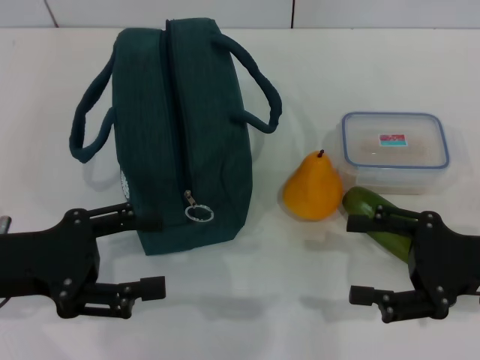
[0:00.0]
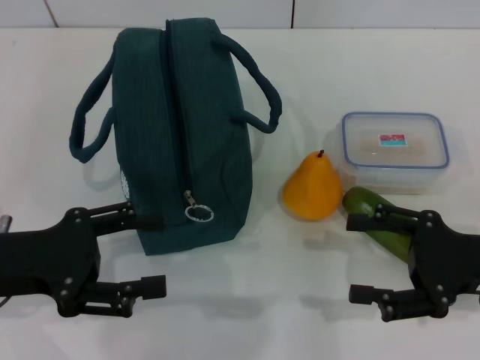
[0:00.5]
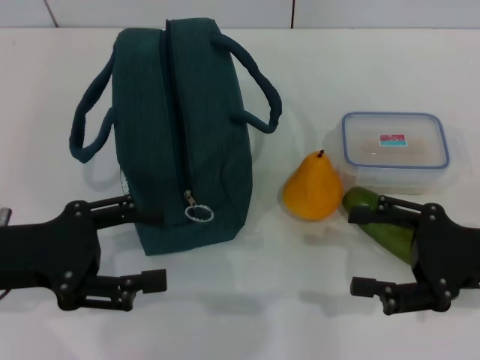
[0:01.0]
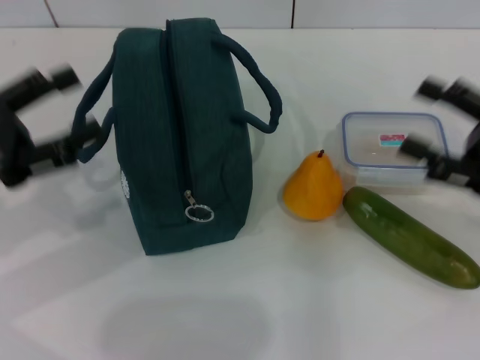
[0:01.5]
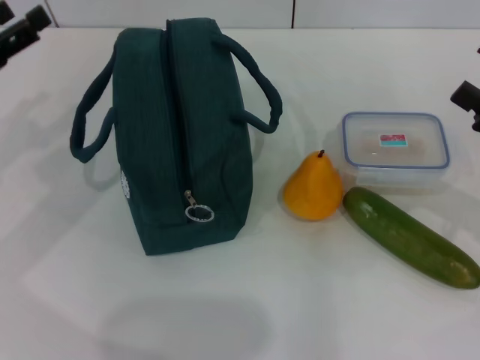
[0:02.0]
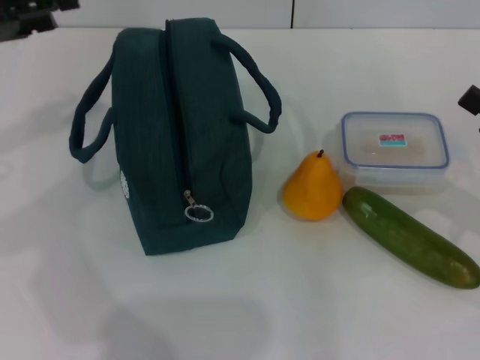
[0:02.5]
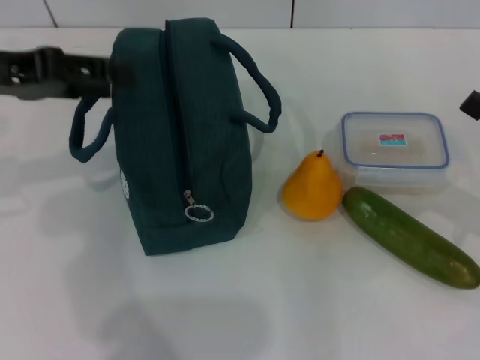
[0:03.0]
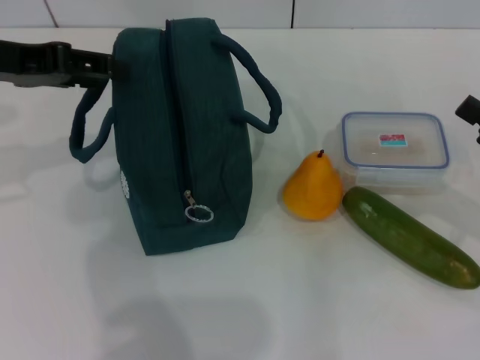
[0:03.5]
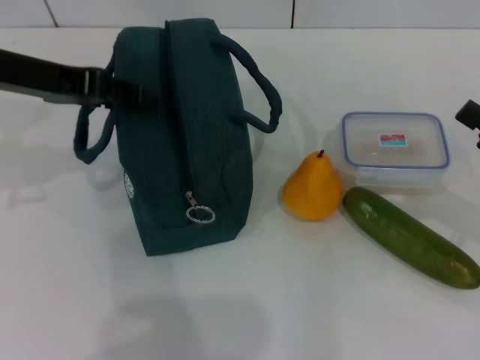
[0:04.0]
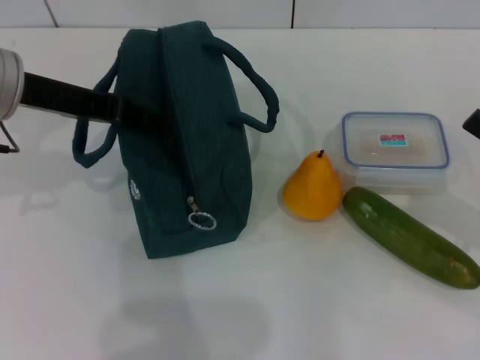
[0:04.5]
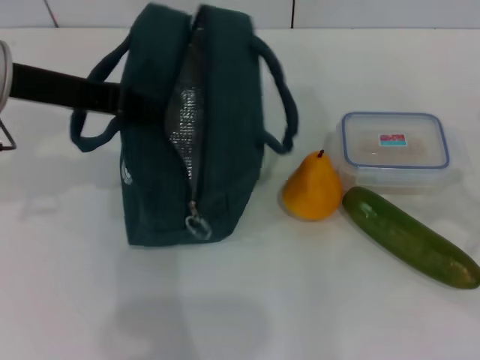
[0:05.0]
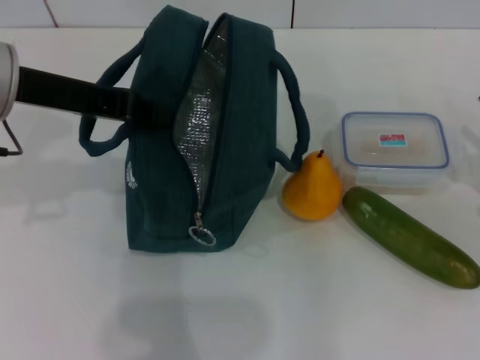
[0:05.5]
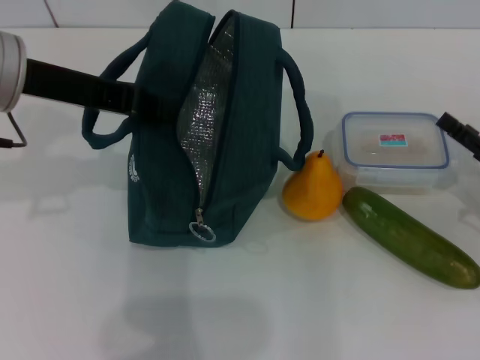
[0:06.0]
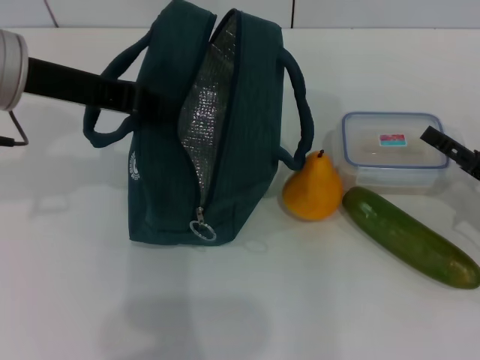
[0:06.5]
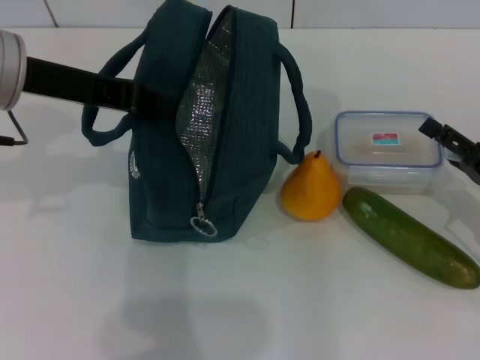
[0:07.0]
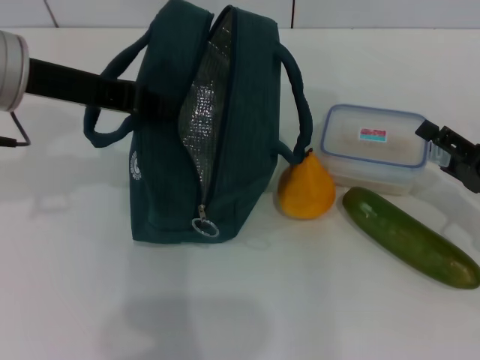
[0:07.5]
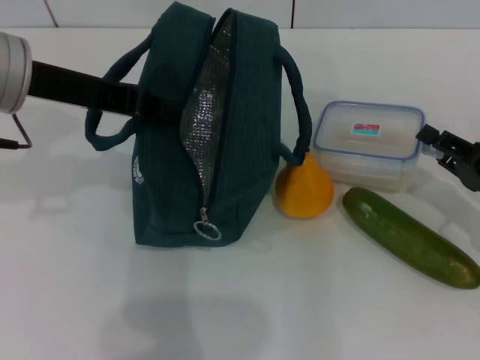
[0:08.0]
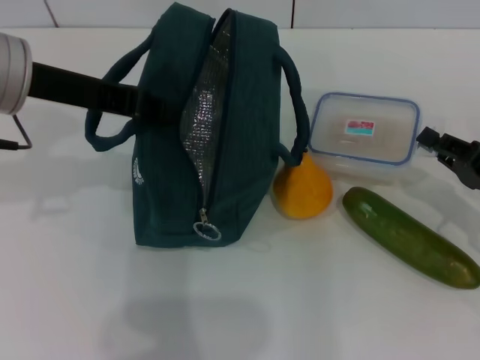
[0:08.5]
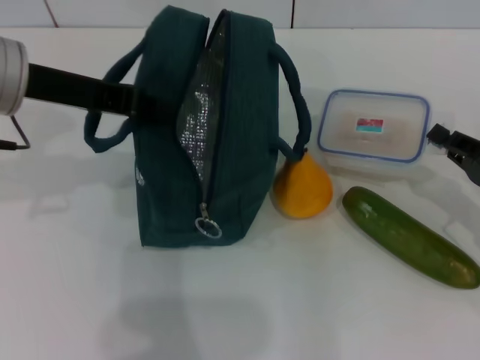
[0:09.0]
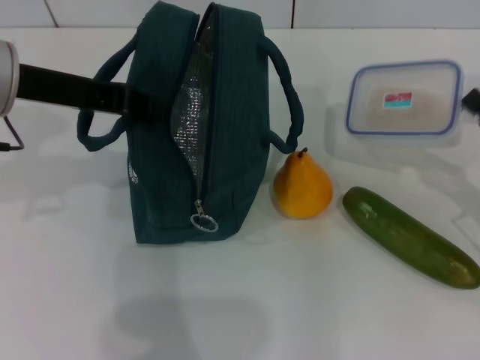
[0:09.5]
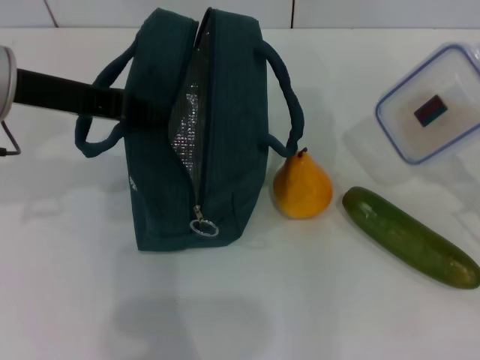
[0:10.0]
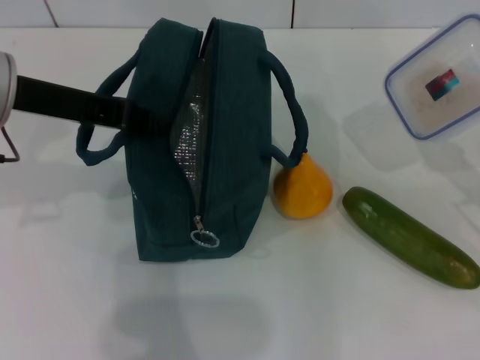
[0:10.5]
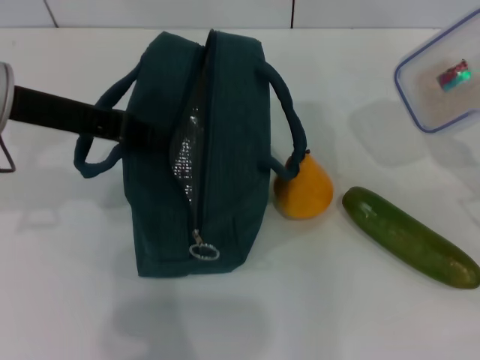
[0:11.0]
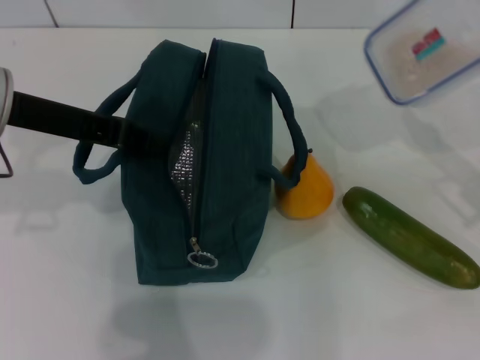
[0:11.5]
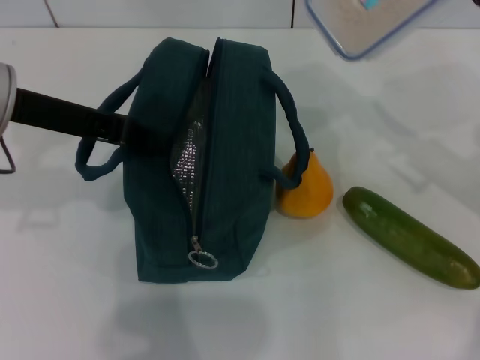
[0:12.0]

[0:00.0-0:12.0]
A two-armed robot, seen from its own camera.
Step, 0:00.0 to 0:04.5: Hold the lunch bag with your left hand.
Step, 0:05.0 to 0:08.0: Pick up the lunch box with your right hand.
0:00.0 to 0:02.0: The right gripper travels to the right by approximately 5 cm. The left gripper moves forward and to the left, roughly 10 cm.
0:02.0 to 0:04.0: The left gripper travels upward and to the right by roughly 10 cm.
0:04.0 to 0:06.0: The left gripper closes; the right gripper shifts about 10 cm downward.
0:06.0 to 0:08.0: The right gripper closes.
0:08.0 to 0:10.0: The right gripper shifts by about 5 cm, and closes.
0:10.0 to 0:12.0: The right gripper heads forward, upward and to the left, covering about 10 cm.

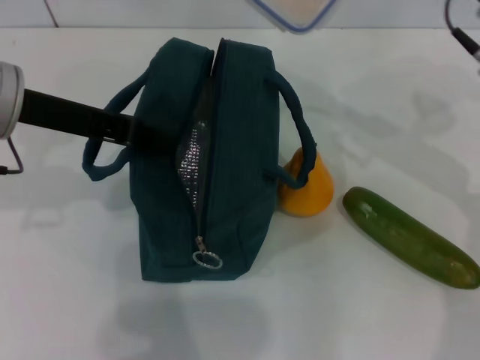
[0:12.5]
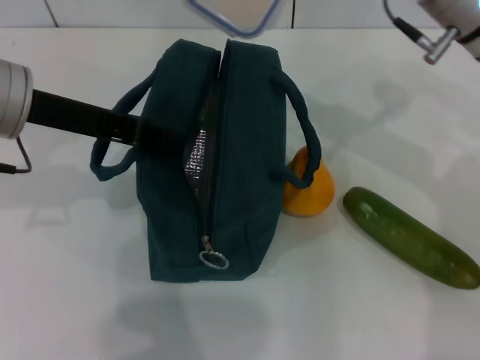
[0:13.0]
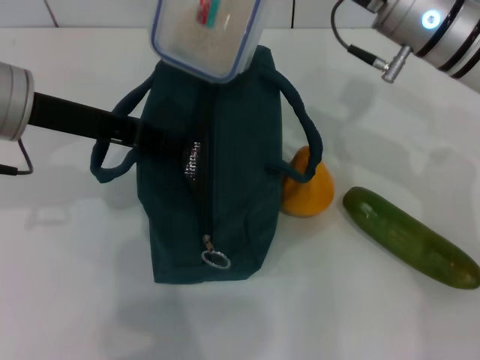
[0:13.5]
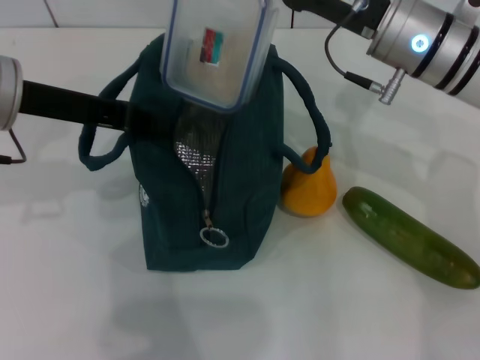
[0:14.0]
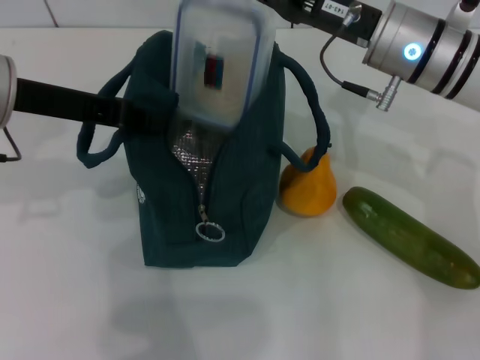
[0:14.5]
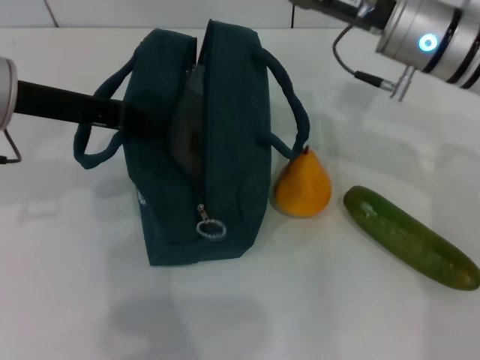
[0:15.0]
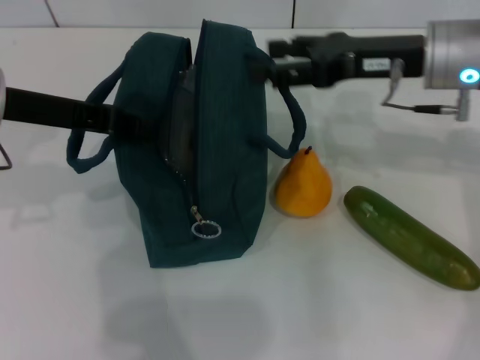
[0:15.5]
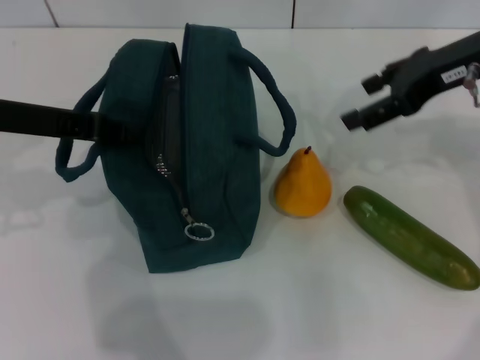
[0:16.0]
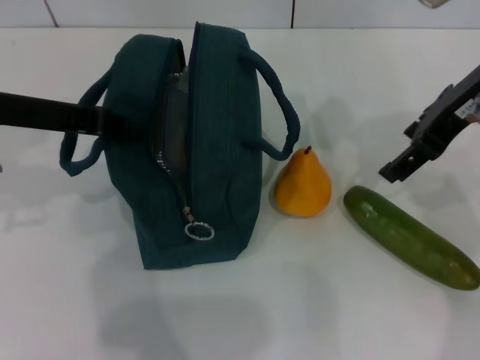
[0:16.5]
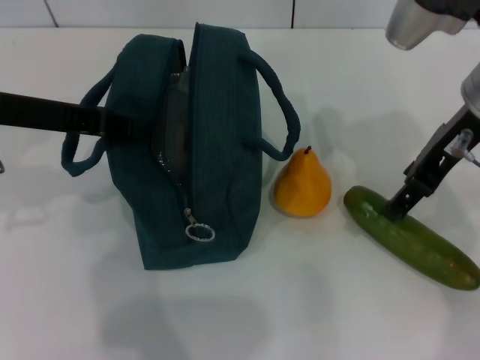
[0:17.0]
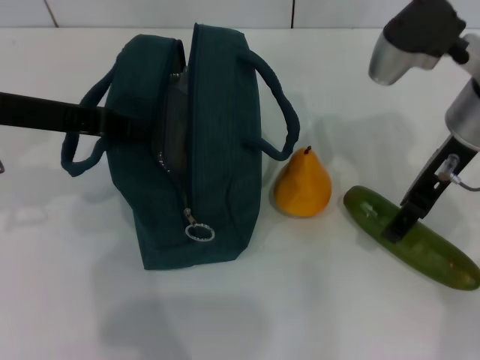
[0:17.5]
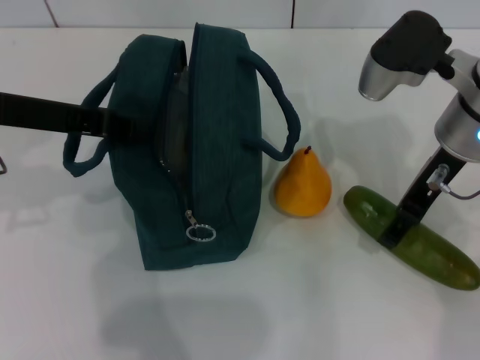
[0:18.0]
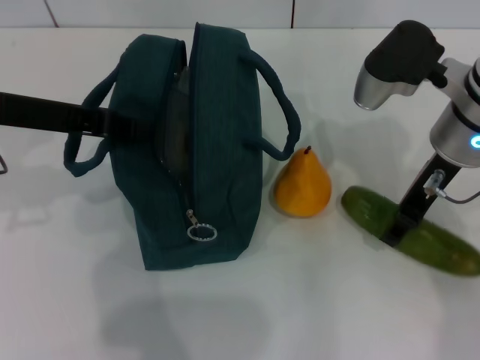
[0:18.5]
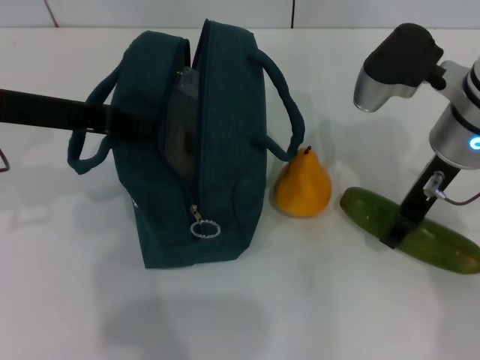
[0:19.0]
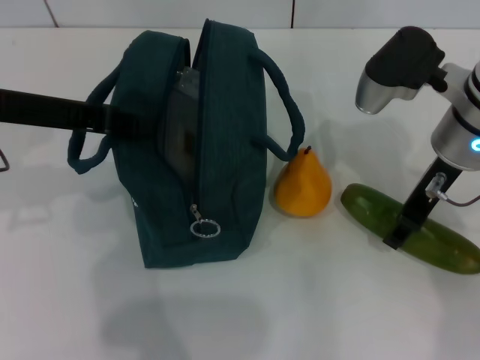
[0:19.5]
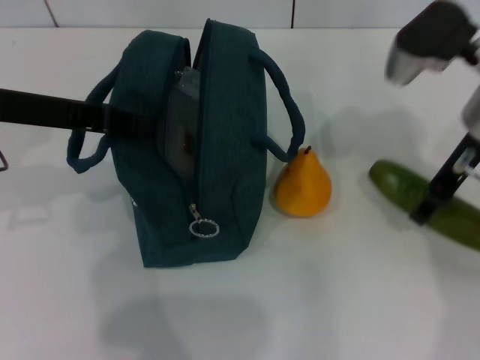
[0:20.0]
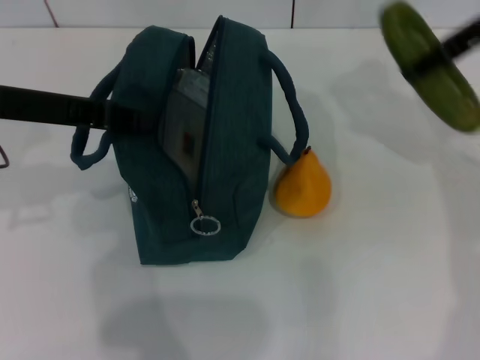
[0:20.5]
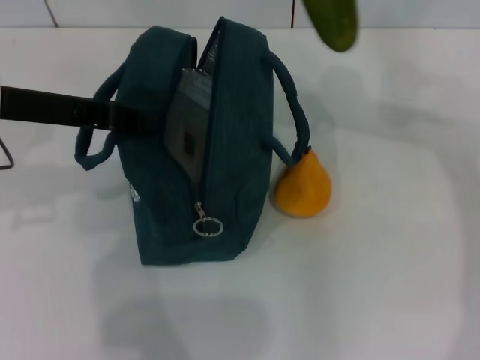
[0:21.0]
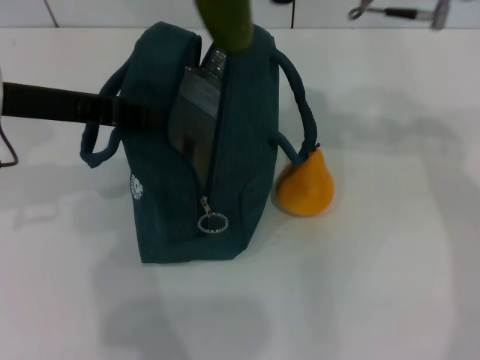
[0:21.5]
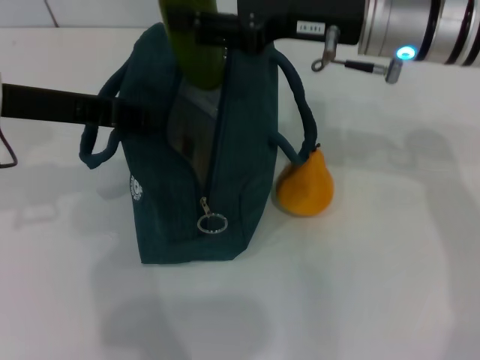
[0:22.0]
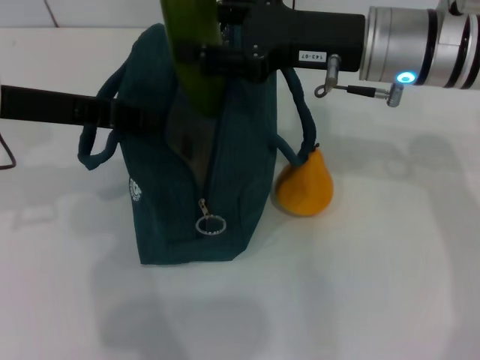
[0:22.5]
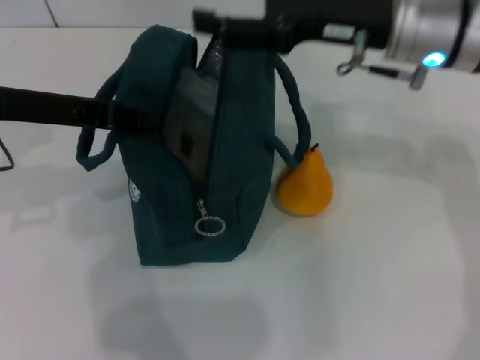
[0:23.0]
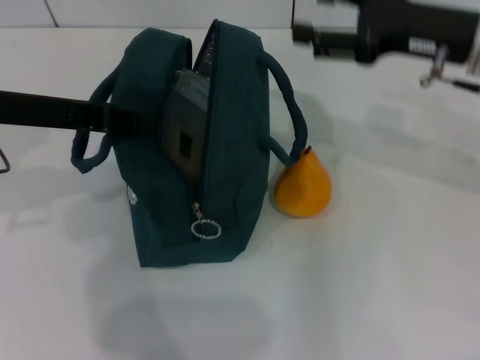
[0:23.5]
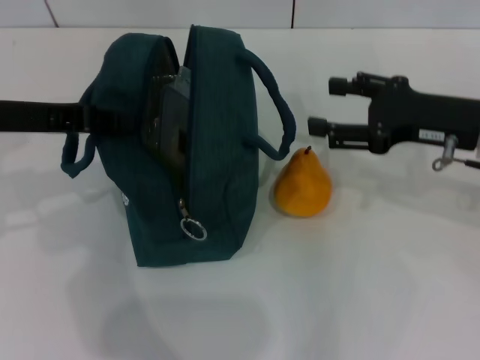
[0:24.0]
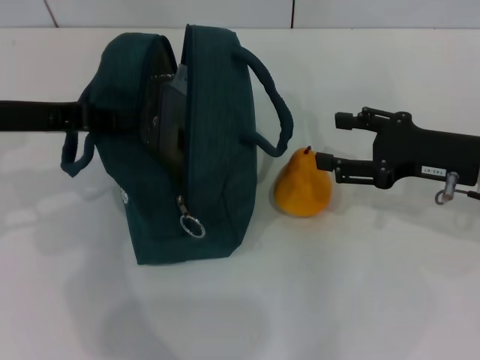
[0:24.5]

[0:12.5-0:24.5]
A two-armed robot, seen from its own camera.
Step, 0:12.5 to 0:14.5: Place the lunch box into the lunch bag with your right hand.
Step, 0:15.0 to 0:19.5: Pick up the cucumber with your right hand.
Step, 0:20.0 to 0:22.5: Put the cucumber into the lunch bag with your right hand.
0:12.5 to 0:14.5: The right gripper shifts roughly 10 cm to the left.
0:14.5 to 0:16.5: The right gripper shifts roughly 10 cm upward and to the right, and opens its fingers.
0:16.5 to 0:18.5: The right gripper moves downward, roughly 10 cm.
0:18.5 to 0:20.5: The right gripper heads upward and to the right, covering approximately 10 cm.
0:20.5 to 0:22.5: The right gripper moves to the left and downward, approximately 15 cm.
0:22.5 to 0:24.5: The right gripper shifts some 15 cm to the right, downward and backward.

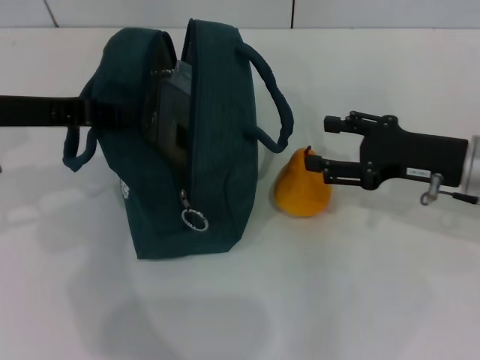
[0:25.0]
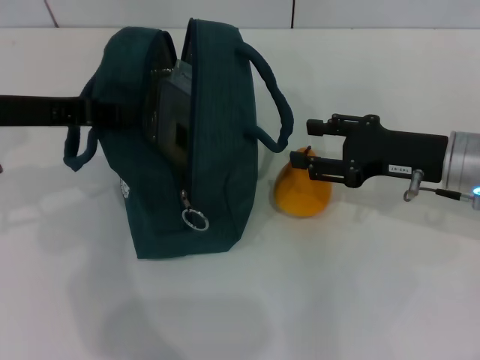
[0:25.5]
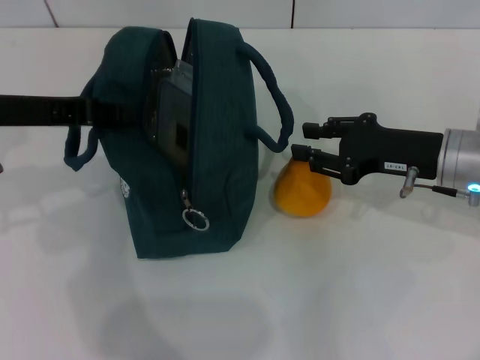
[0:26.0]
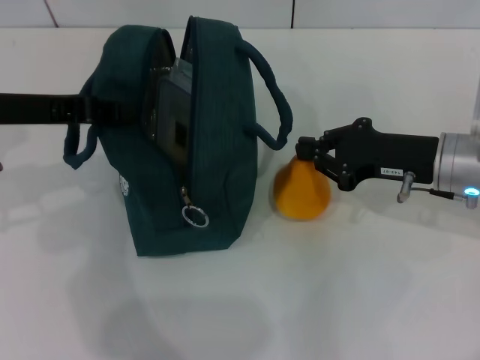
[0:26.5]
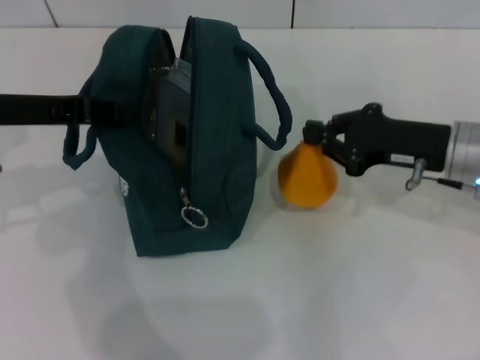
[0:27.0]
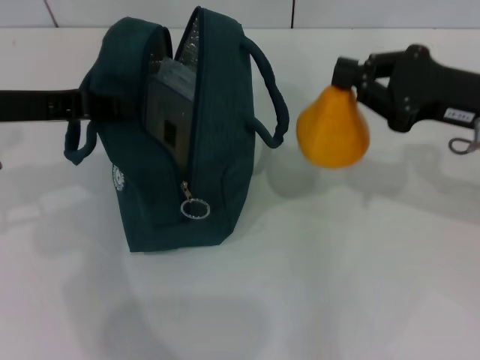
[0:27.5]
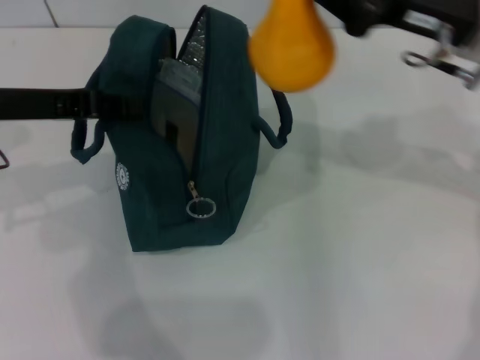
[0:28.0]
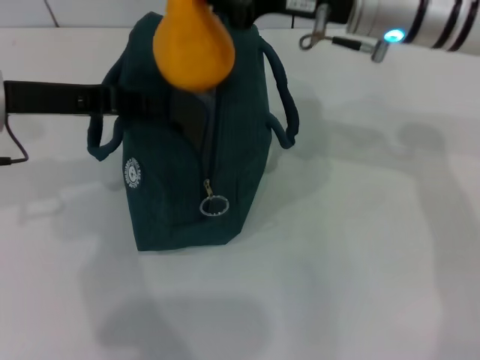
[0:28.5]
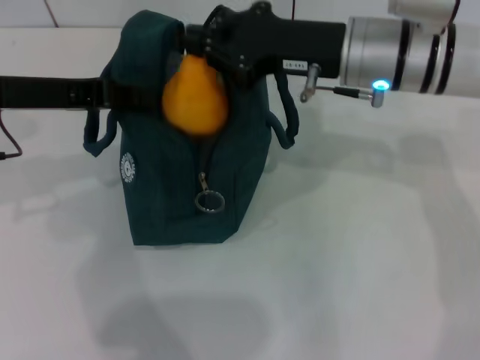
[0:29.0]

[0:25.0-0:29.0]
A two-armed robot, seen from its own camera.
0:25.0 to 0:27.0: The right gripper closes up.
0:27.0 to 0:29.0: The right gripper heads to the left and upward, covering roughly 15 cm.
